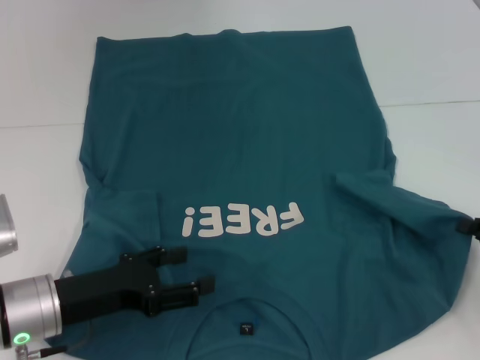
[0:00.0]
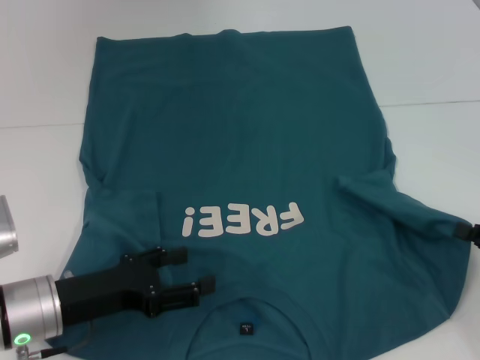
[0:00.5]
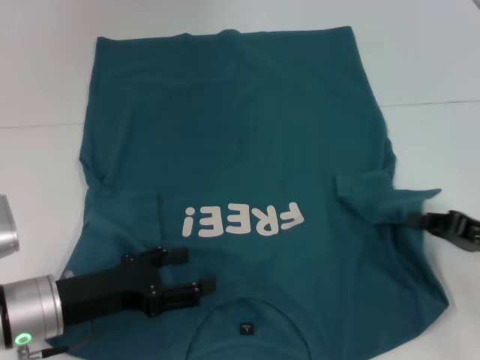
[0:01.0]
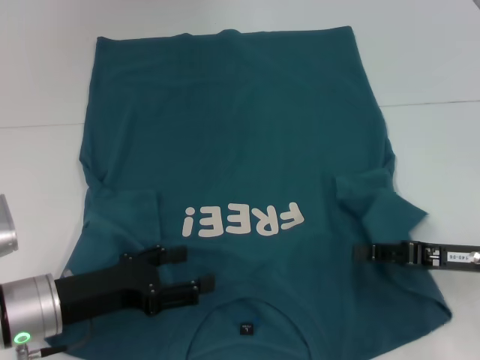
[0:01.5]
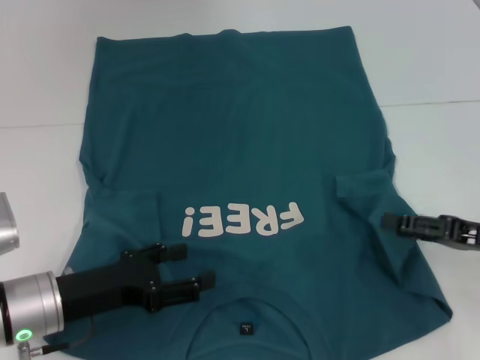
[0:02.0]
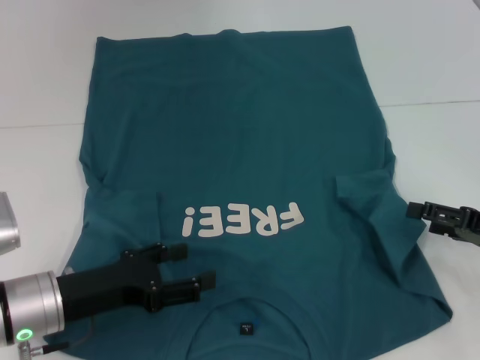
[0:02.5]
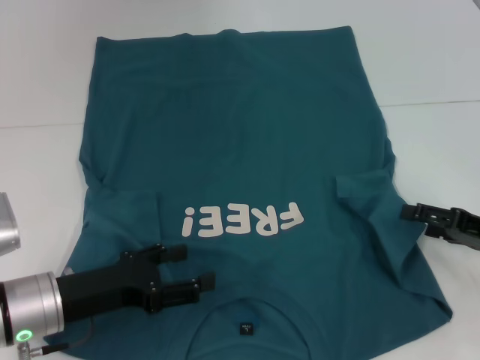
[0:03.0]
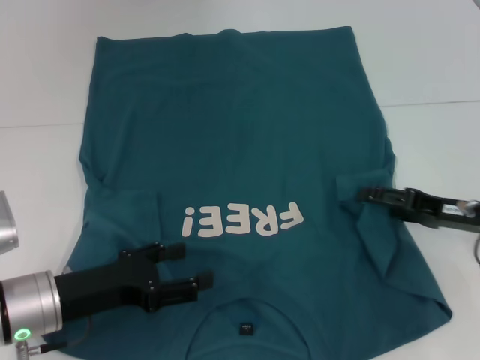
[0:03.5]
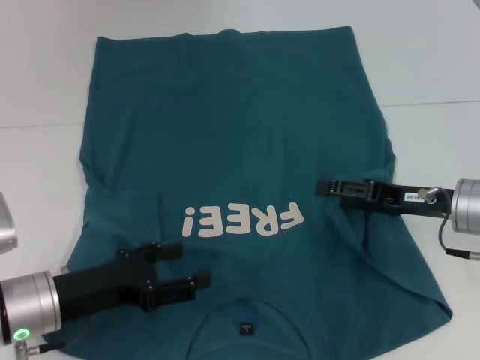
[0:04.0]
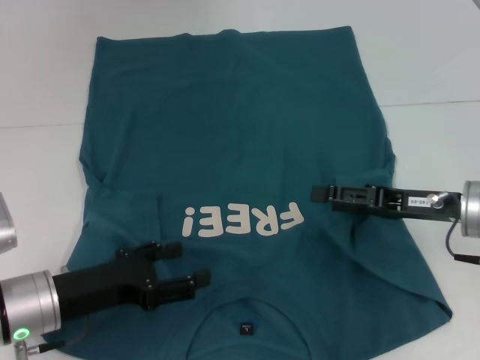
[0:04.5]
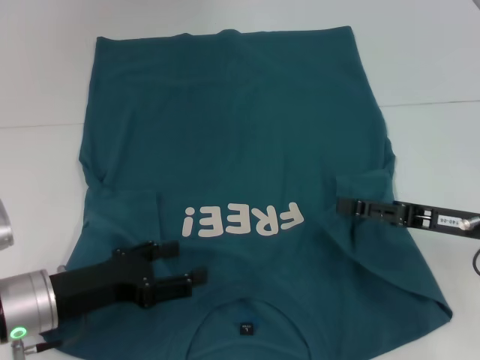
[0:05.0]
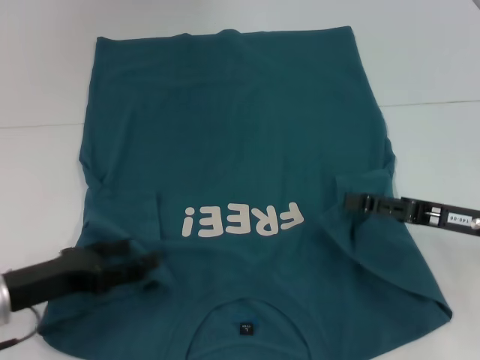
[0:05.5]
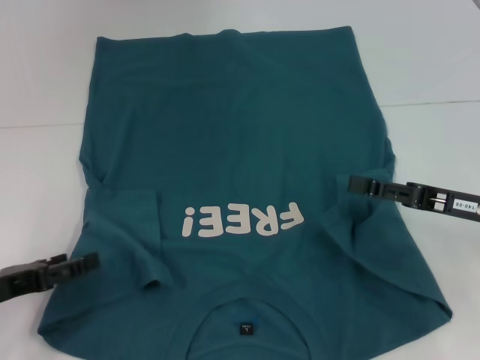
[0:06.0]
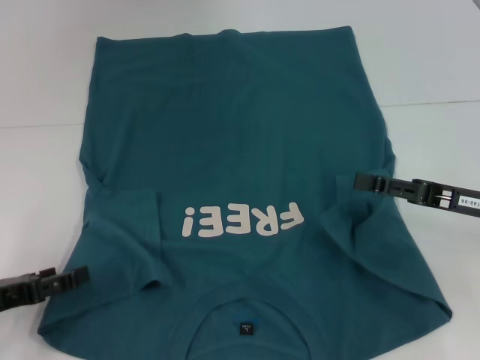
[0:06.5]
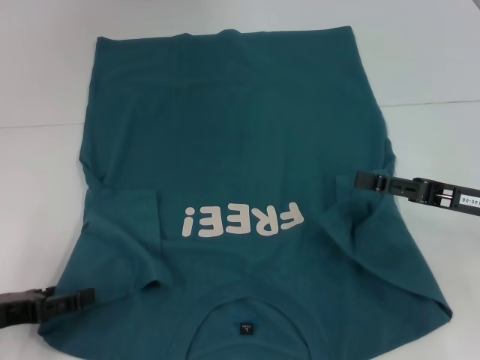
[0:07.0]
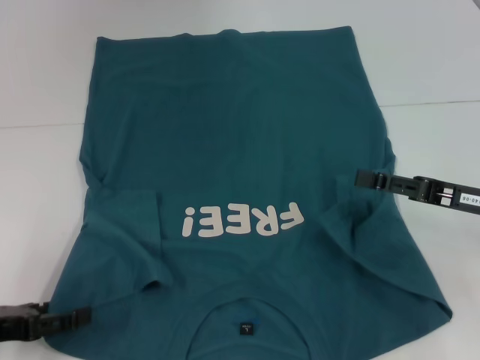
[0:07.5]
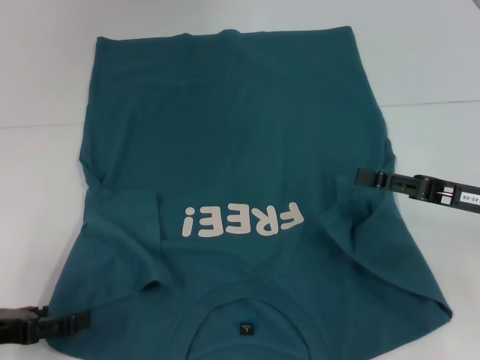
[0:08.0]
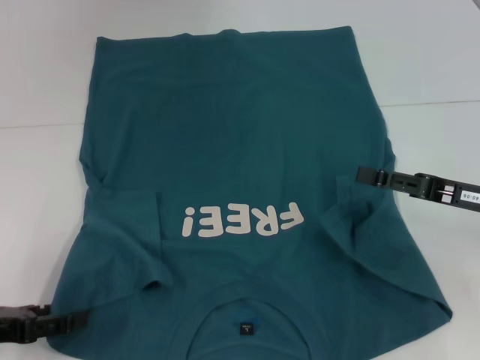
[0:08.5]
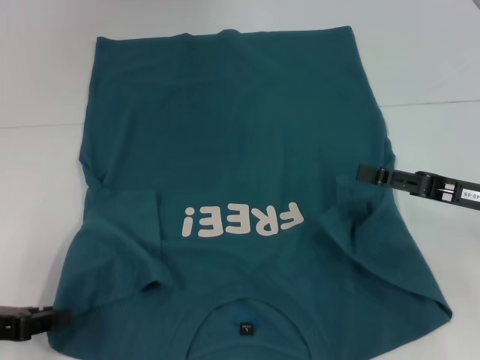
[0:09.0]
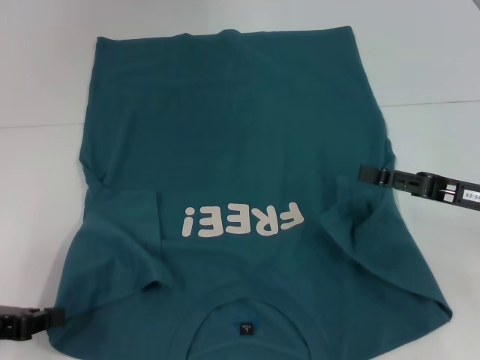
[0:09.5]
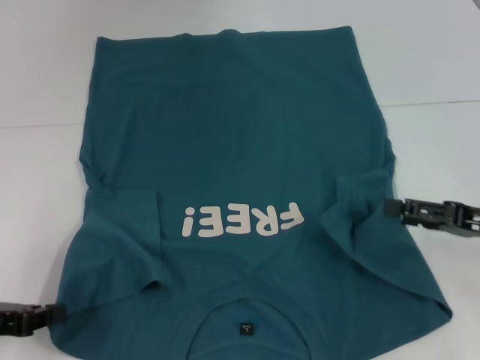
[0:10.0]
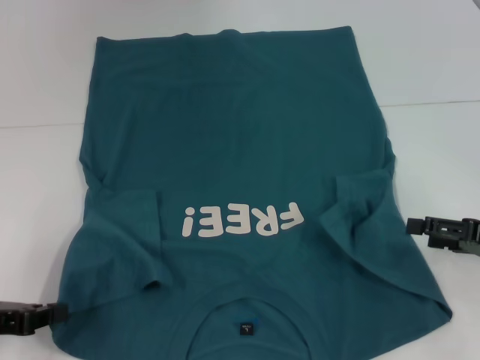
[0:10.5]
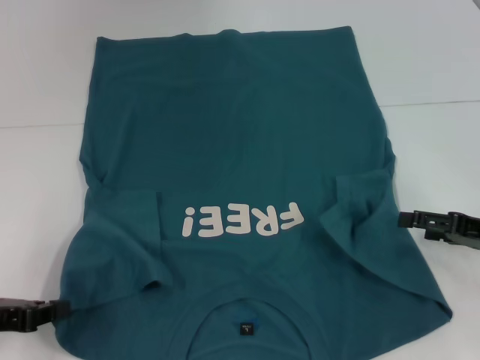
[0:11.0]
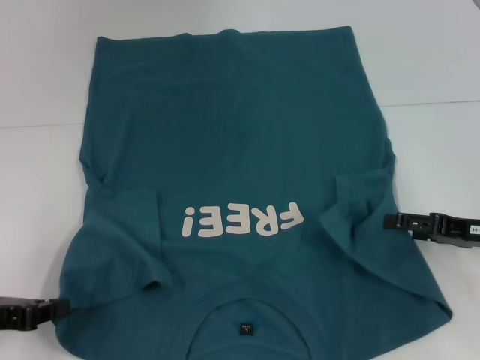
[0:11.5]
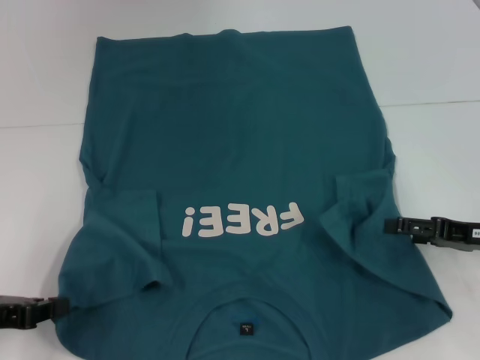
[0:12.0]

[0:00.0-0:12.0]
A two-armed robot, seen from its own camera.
Step, 0:00.0 to 0:04.5: Fold the bottom right sleeve to the right.
Step, 0:05.0 to 0:09.5: Grab the bottom left corner with your left hand.
0:00.0 to 0:02.0: The right gripper moves about 5 cm, and opens up.
0:02.0 to 0:04.0: The right gripper moves to the left and forward, roughly 10 cm, and opens its fingers.
0:04.0 to 0:06.0: The left gripper is displaced to the left by about 10 cm.
0:06.0 to 0:08.0: The grippers move only a little.
0:08.0 to 0:10.0: The left gripper closes up.
0:10.0 to 0:12.0: The grippers move only a little.

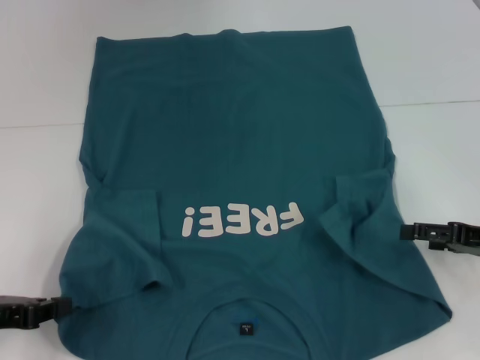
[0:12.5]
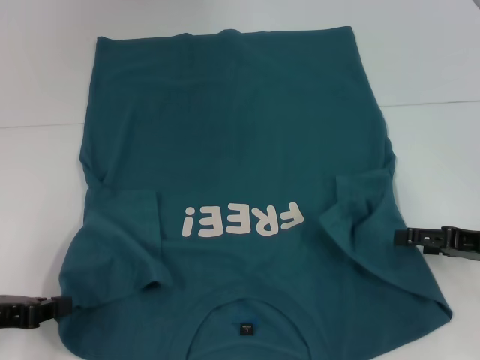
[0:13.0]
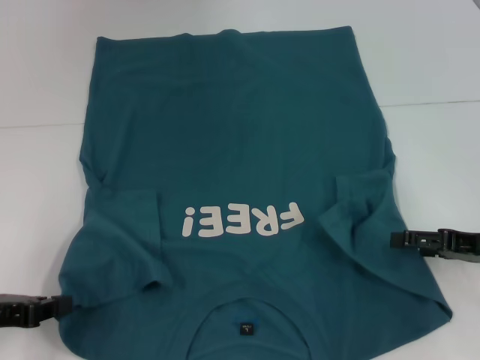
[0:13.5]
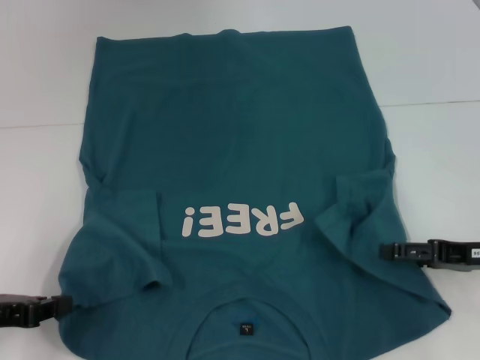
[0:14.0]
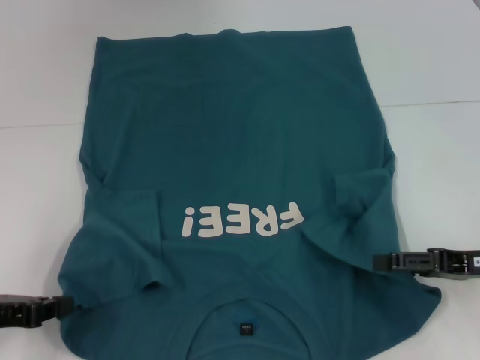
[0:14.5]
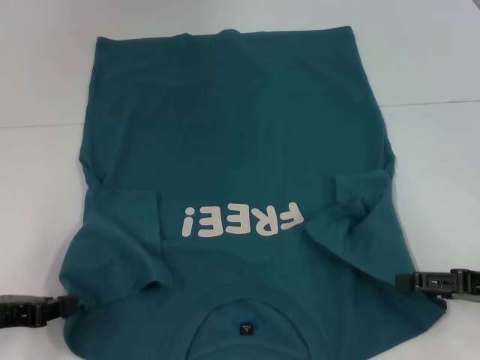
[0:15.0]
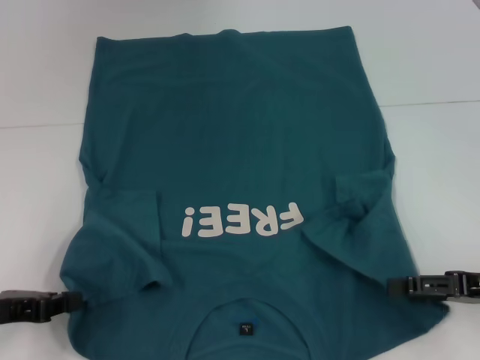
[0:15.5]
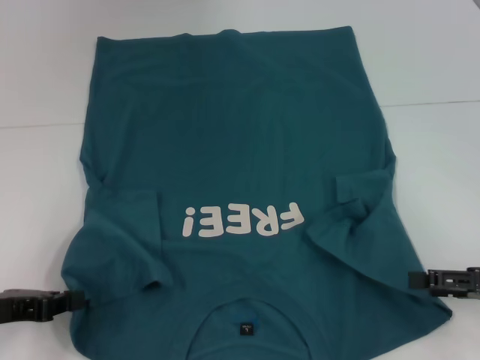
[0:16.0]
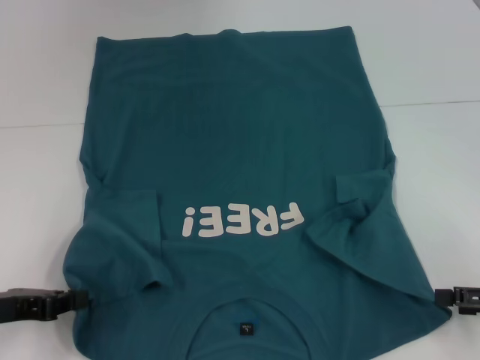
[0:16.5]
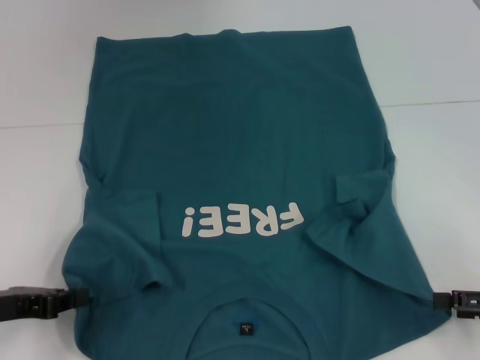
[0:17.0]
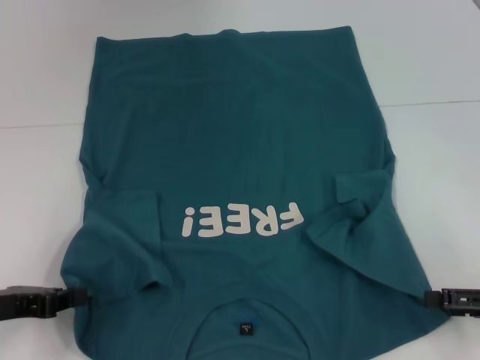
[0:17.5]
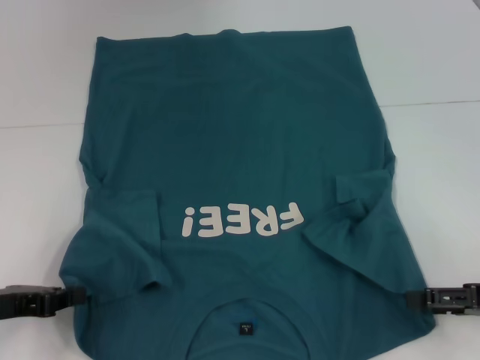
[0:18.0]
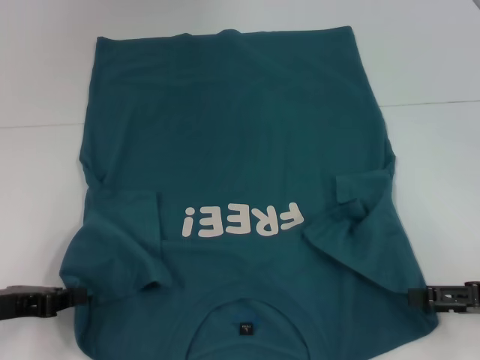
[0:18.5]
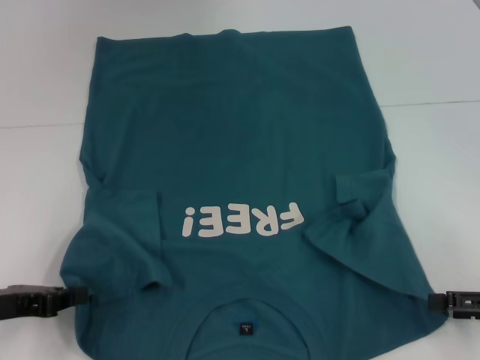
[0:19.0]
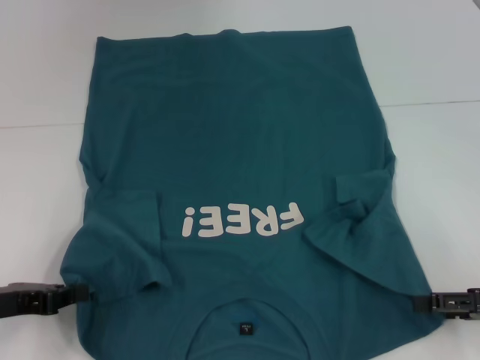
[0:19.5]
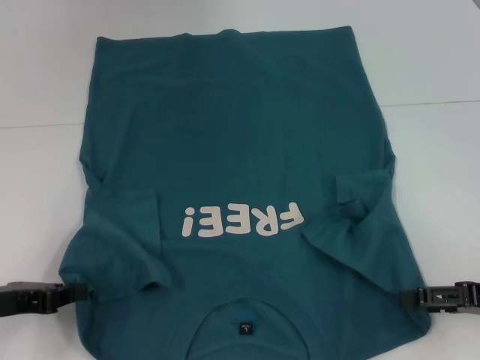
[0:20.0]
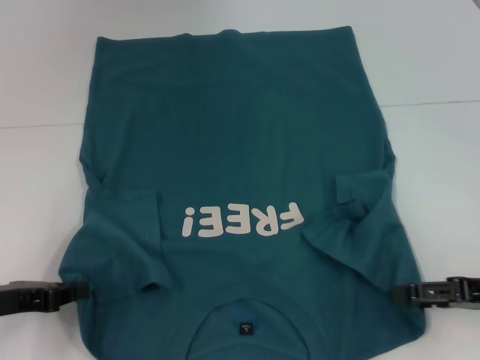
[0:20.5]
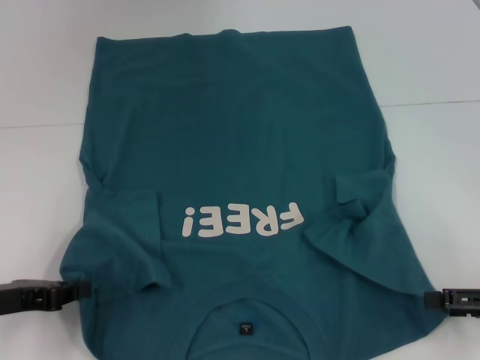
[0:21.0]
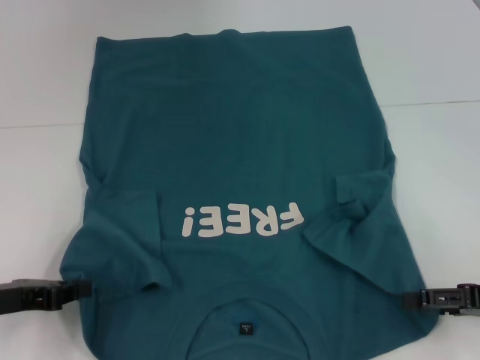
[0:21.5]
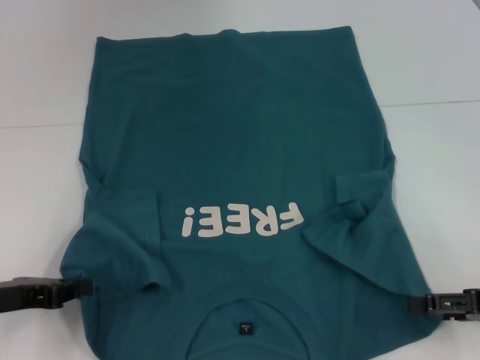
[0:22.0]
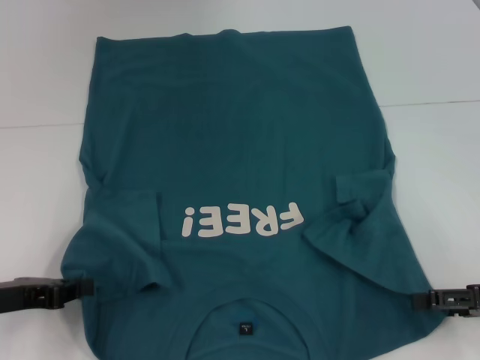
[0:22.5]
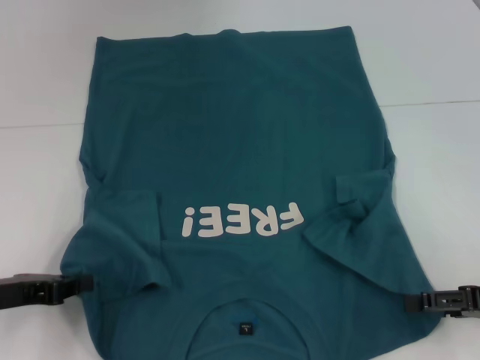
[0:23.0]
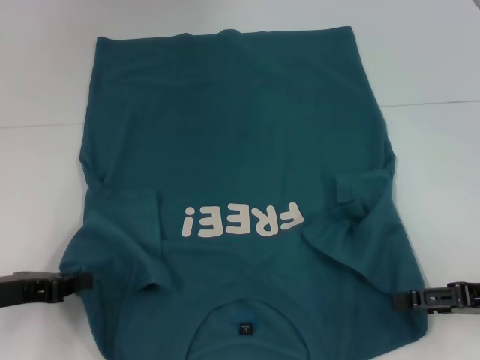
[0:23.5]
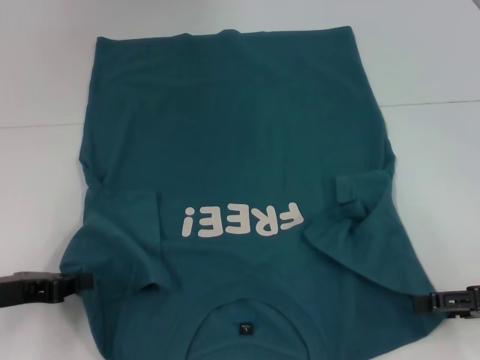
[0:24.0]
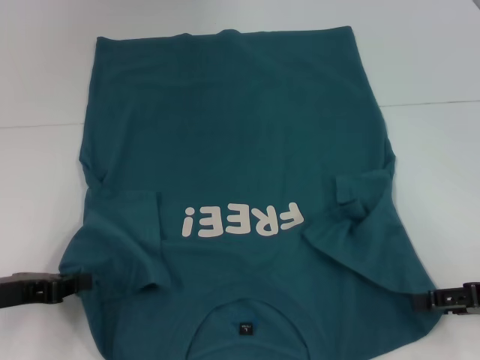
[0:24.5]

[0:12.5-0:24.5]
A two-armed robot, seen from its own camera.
0:12.5 to 0:14.5: The grippers move only a little.
0:14.5 to 0:16.5: The right gripper moves to the right, roughly 5 cm.
0:16.5 to 0:24.5: The grippers make only small movements.

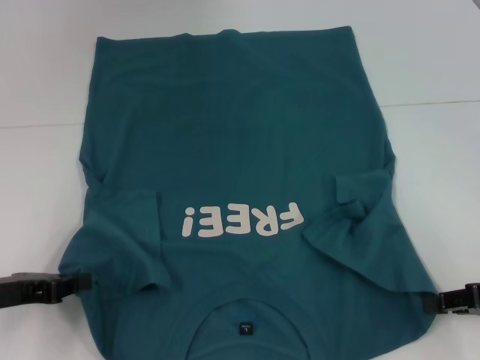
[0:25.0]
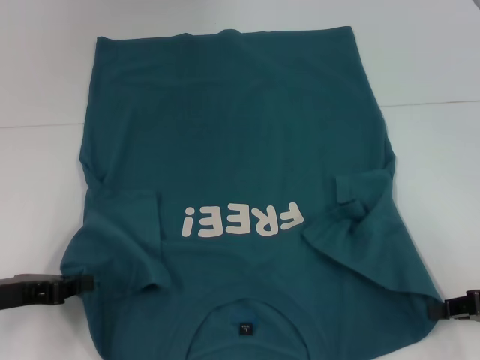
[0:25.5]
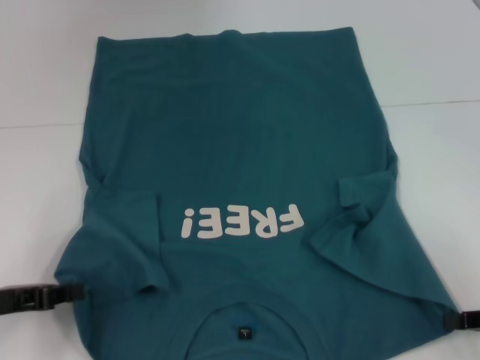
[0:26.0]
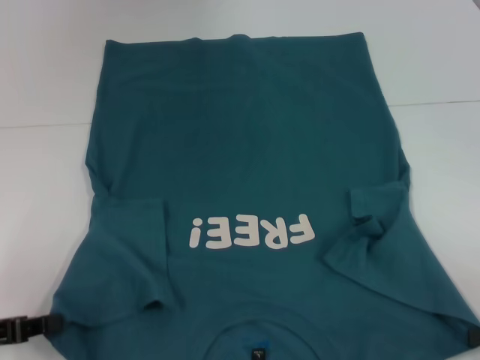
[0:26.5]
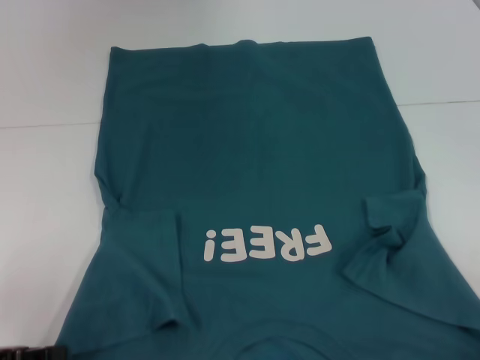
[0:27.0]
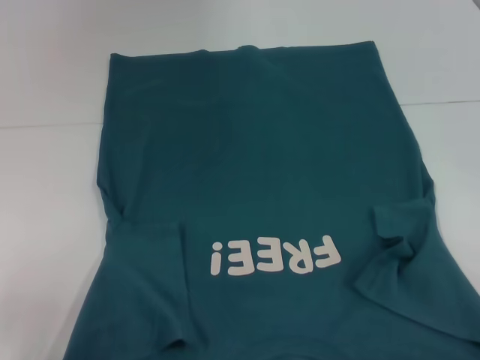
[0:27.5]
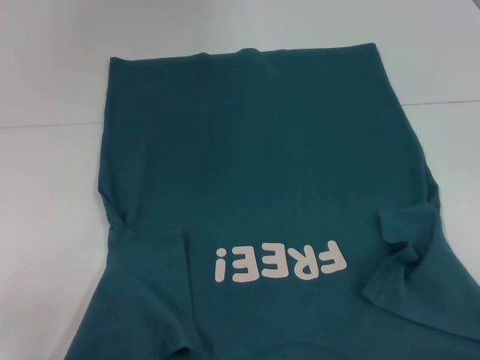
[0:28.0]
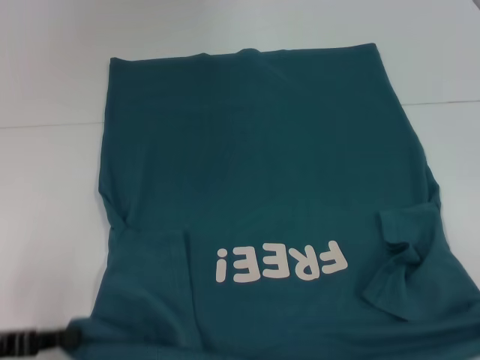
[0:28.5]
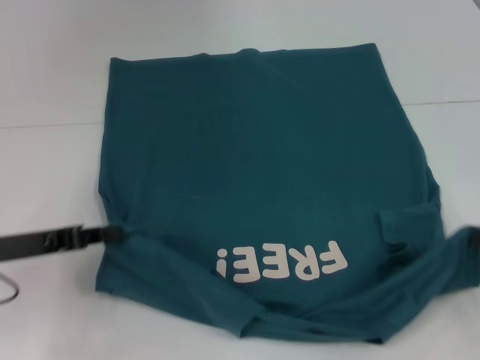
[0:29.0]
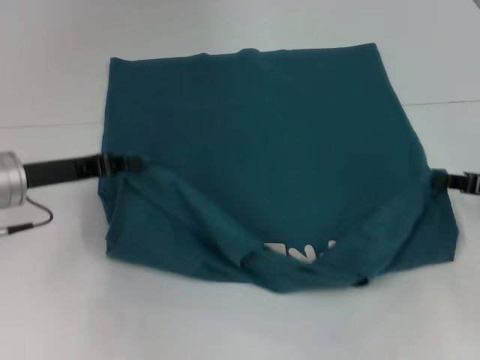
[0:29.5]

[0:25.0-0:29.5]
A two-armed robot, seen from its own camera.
0:25.0 to 0:27.0: The right gripper heads backward and to the right, covering roughly 10 cm, and closes its fingers, while the left gripper moves backward, about 5 cm.
0:27.0 to 0:29.5: The left gripper is displaced forward and to the right by approximately 15 cm. Meanwhile the right gripper moves forward, approximately 15 cm.
